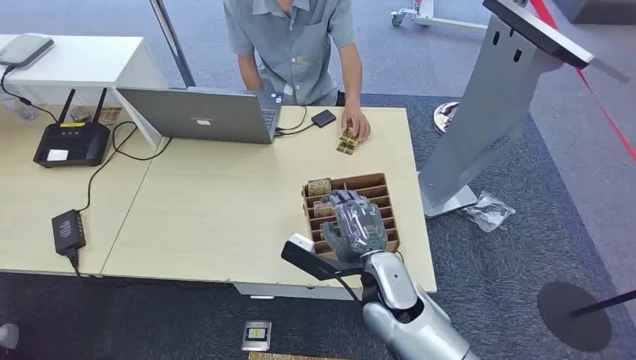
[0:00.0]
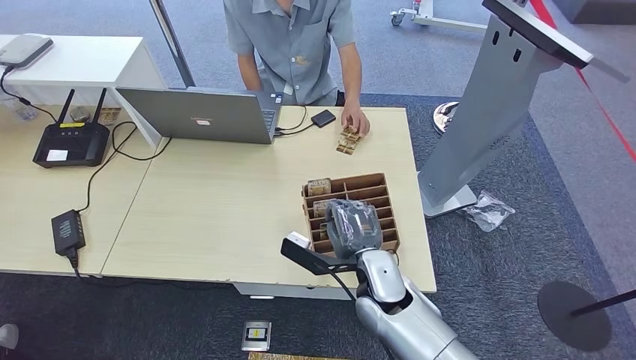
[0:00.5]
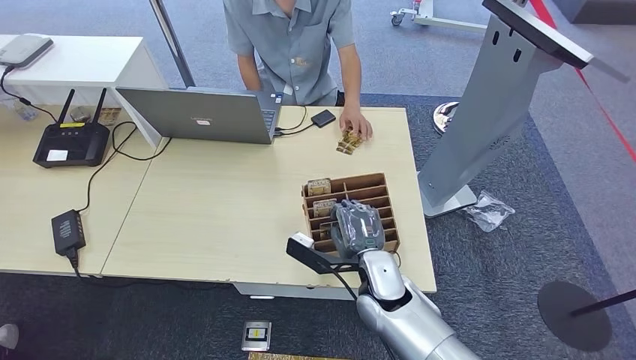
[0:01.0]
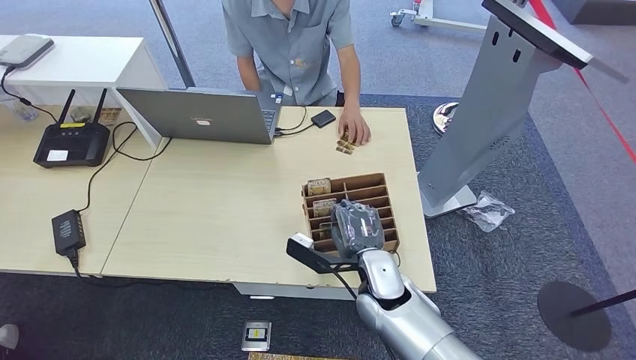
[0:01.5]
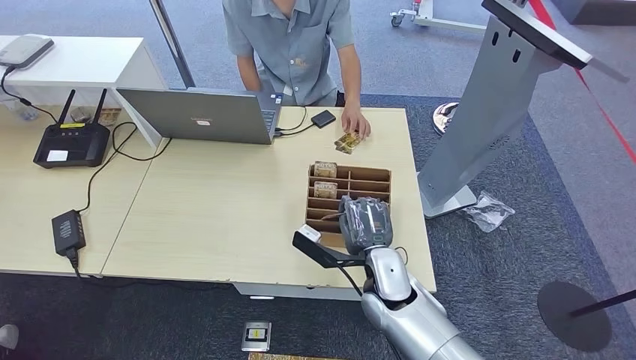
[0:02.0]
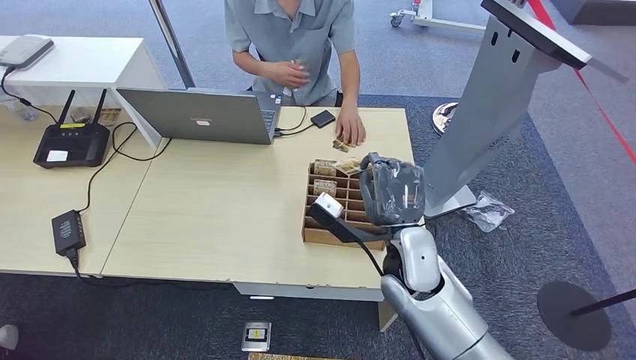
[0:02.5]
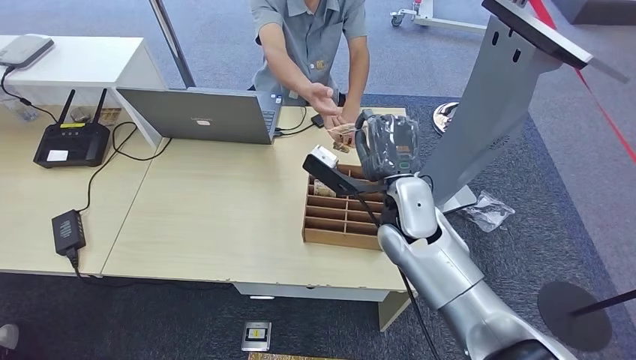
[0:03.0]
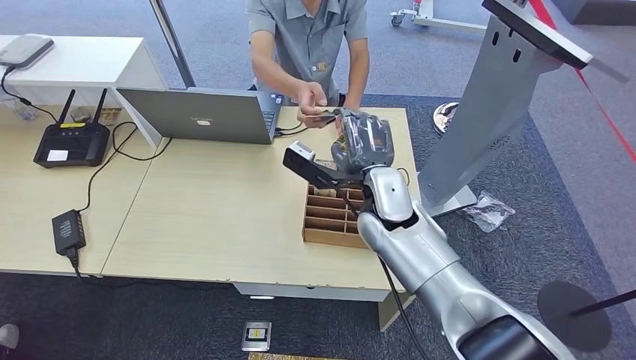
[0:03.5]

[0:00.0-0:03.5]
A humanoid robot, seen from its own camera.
Step, 0:00.0 to 0:02.0: Pick up the room card from the card holder.
Step, 0:03.0 to 0:03.5: Hand the room card to the target.
0:02.0 to 0:03.5: The right hand travels upward and forward by approximately 15 cm.
